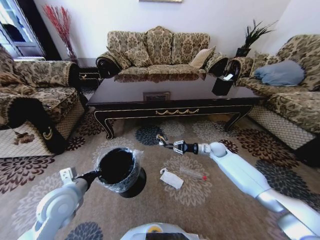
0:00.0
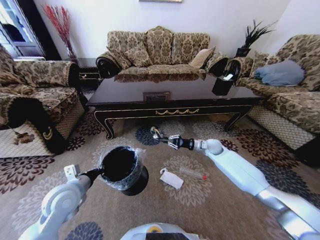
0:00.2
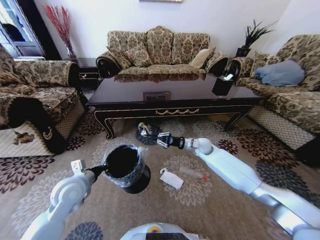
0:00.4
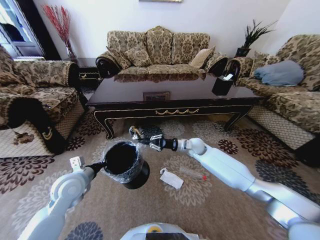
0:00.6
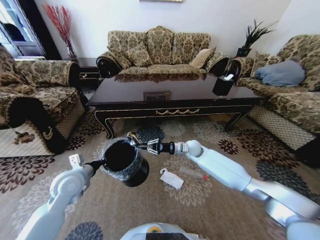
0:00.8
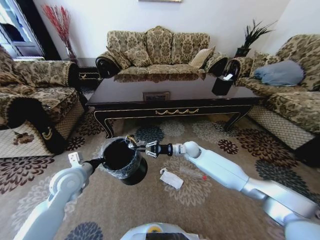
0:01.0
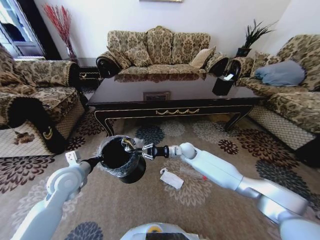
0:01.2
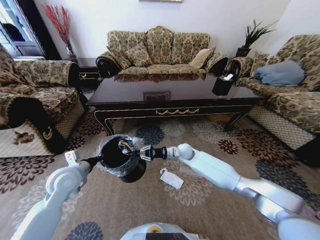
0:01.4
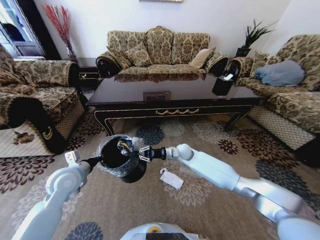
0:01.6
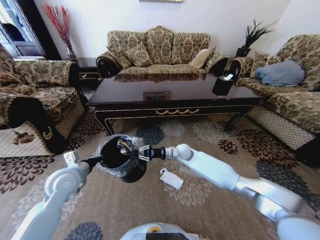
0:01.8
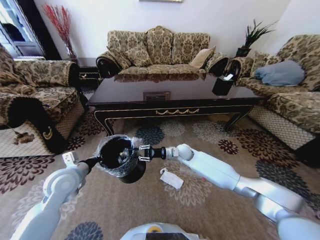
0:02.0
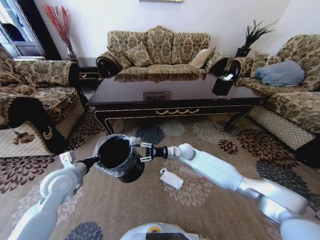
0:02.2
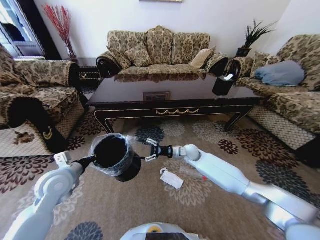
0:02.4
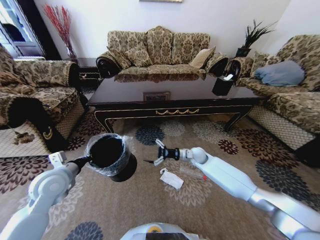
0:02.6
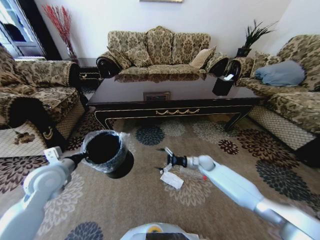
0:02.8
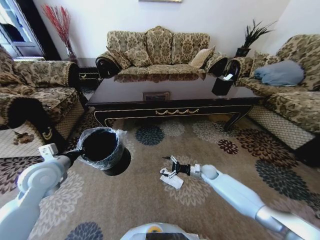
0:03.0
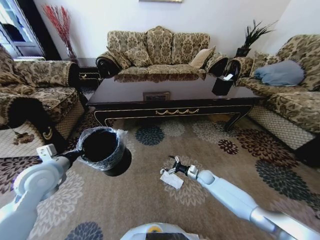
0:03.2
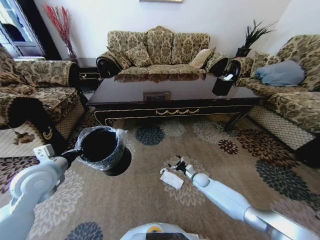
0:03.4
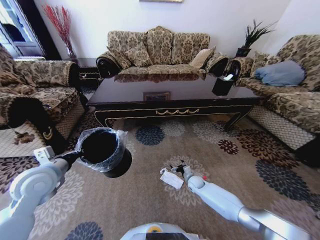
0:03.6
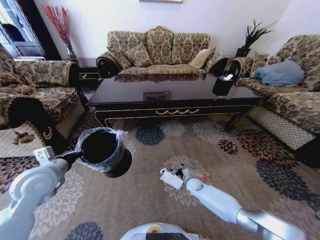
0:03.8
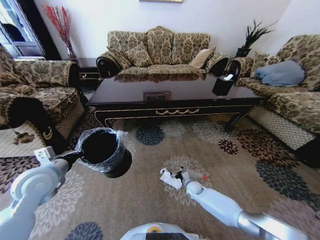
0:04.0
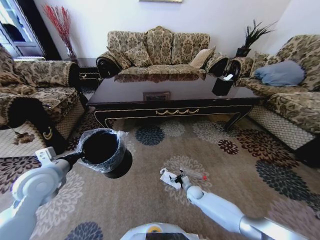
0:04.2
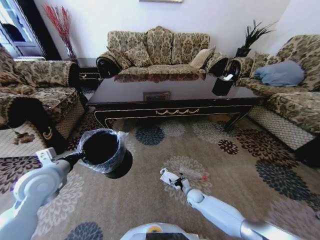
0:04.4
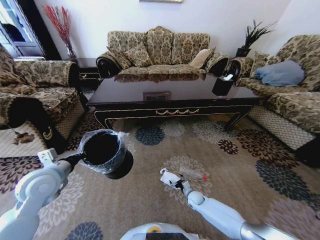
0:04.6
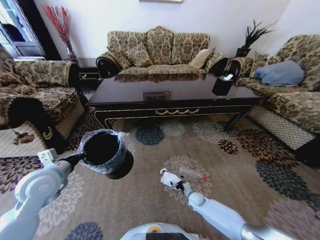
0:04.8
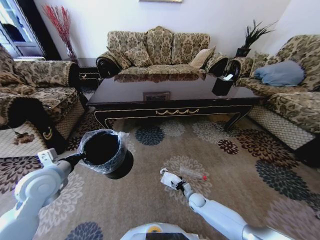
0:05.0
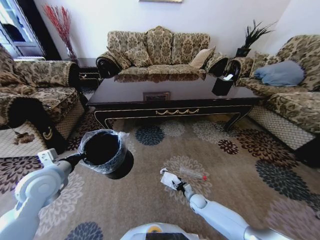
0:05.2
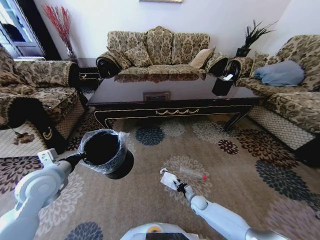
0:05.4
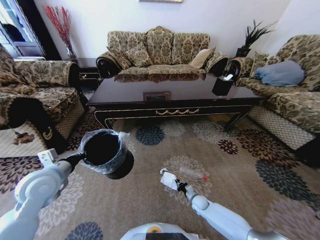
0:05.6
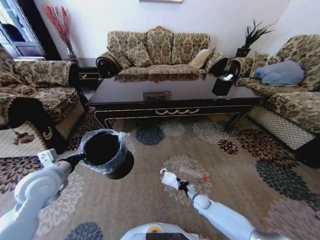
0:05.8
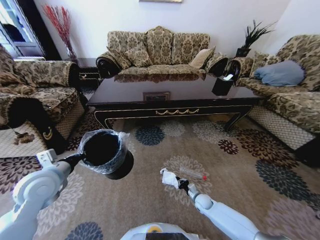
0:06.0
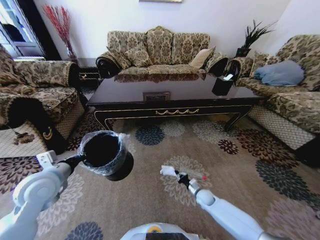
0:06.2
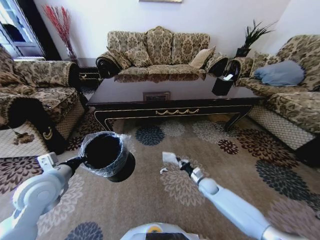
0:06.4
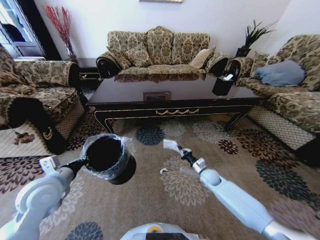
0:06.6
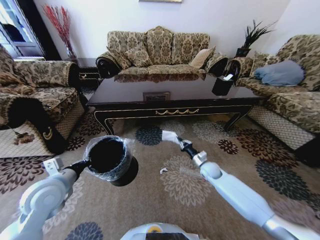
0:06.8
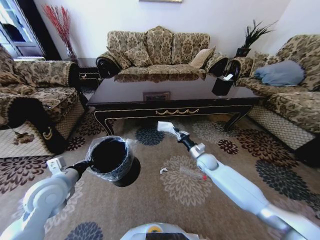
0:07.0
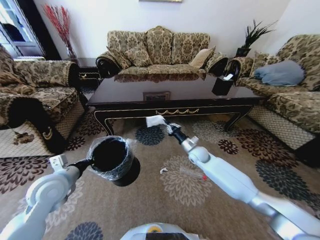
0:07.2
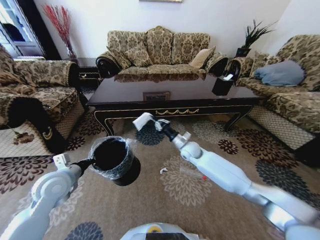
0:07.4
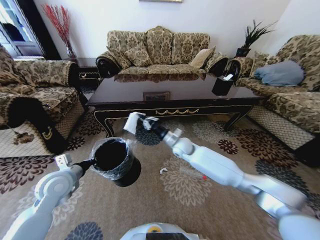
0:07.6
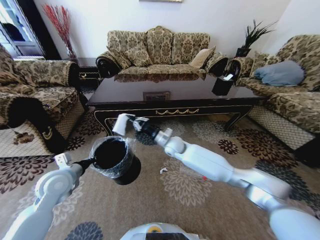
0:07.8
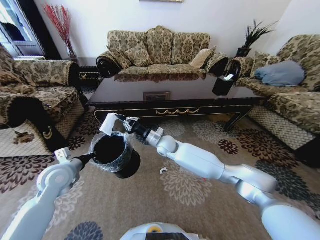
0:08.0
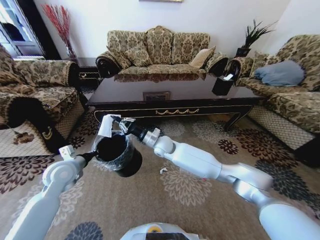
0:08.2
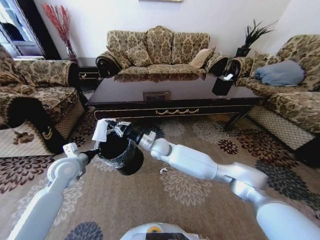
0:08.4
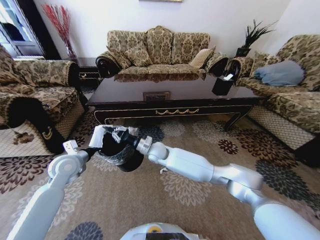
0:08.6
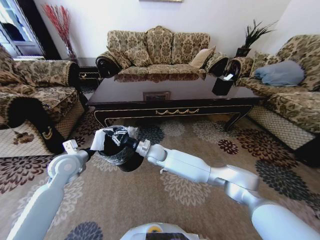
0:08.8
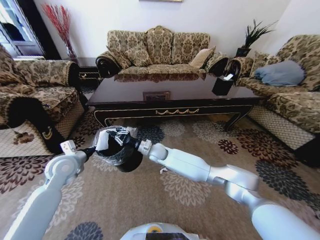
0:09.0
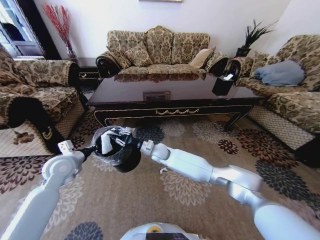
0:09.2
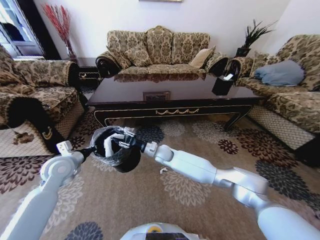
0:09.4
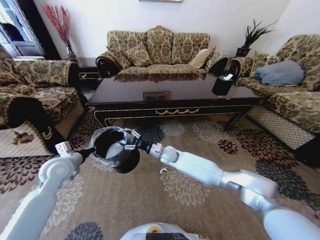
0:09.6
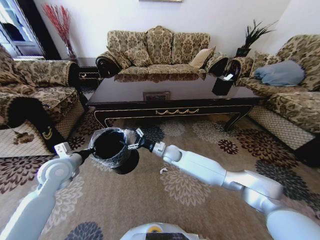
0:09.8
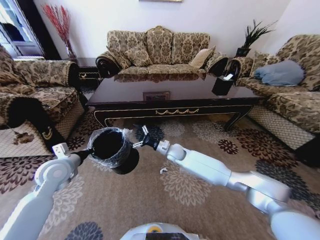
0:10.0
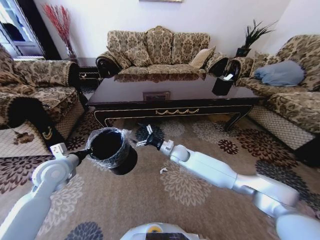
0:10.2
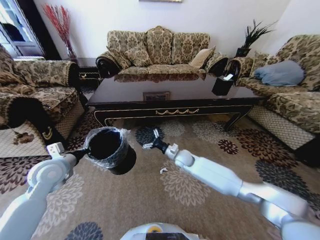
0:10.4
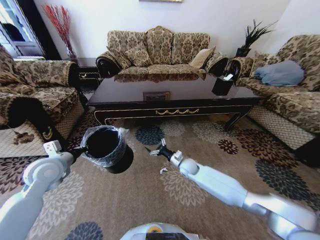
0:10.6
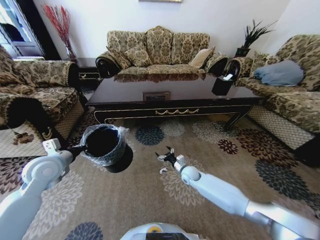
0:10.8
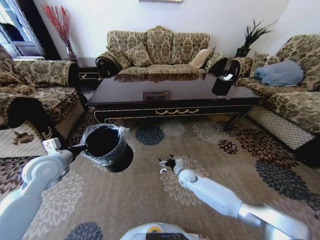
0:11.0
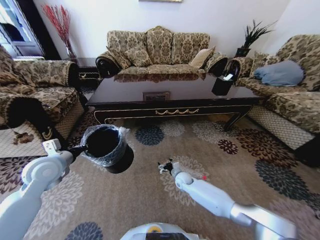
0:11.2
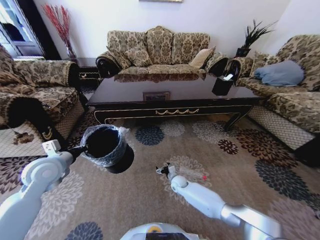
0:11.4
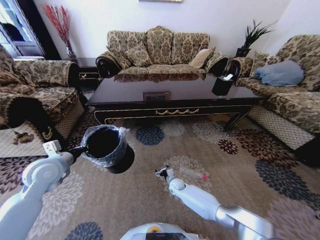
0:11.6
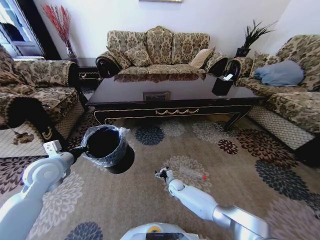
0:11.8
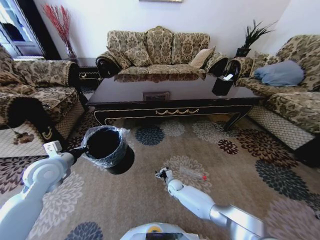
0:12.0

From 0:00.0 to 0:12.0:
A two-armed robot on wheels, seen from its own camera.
Task of the whole recording: Move to the front of the table and pick up the trash from the floor, then place it into the trash bin.
From 0:00.0 to 0:01.6: The right gripper travels to the left by roughly 20 cm, while the left gripper shifts approximately 5 cm forward.
From 0:01.6 to 0:03.0: The left gripper changes place by about 5 cm. Meanwhile the right gripper shifts about 20 cm to the right and downward, and opens.
From 0:03.0 to 0:04.4: The right gripper shifts roughly 15 cm downward, backward and to the left.
From 0:04.4 to 0:06.0: The right gripper closes its fingers.
From 0:06.0 to 0:07.6: The right gripper heads upward, forward and to the left, covering approximately 40 cm.
From 0:07.6 to 0:09.0: The right gripper shifts approximately 10 cm to the left; the left gripper is displaced forward by some 5 cm.
From 0:09.0 to 0:10.4: The right gripper heads to the right, covering approximately 15 cm, and opens.
From 0:10.4 to 0:12.0: The right gripper is displaced downward by some 25 cm.

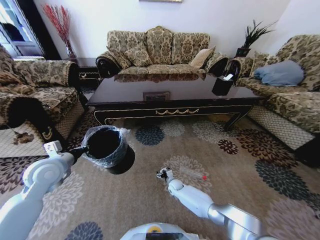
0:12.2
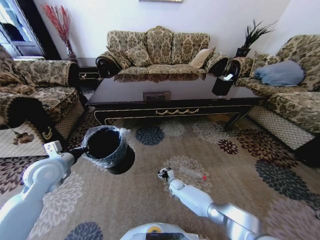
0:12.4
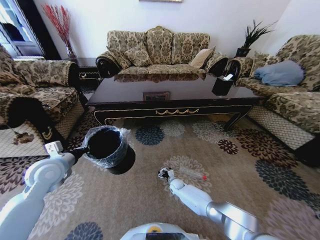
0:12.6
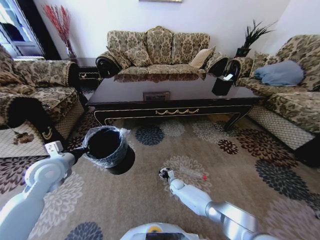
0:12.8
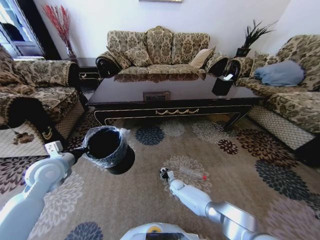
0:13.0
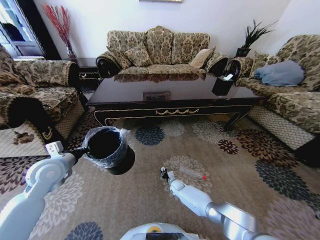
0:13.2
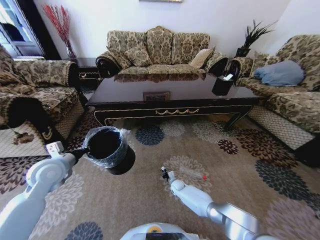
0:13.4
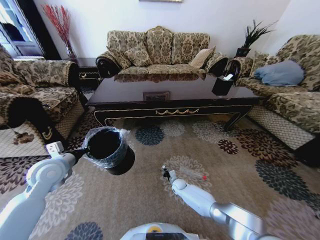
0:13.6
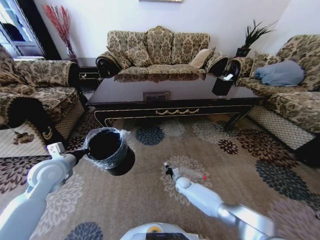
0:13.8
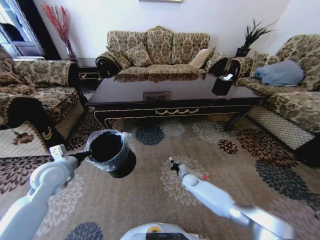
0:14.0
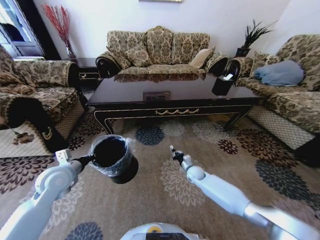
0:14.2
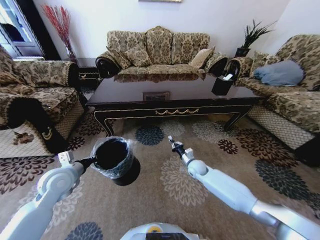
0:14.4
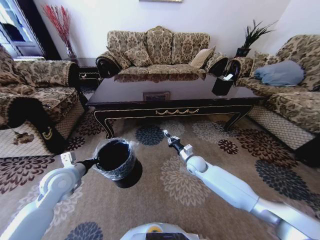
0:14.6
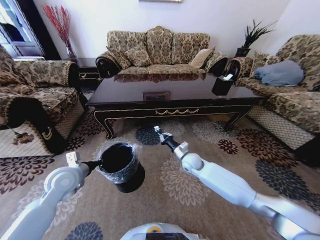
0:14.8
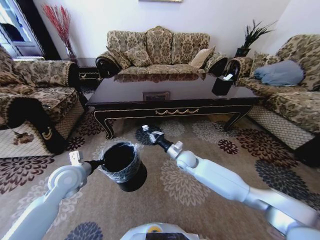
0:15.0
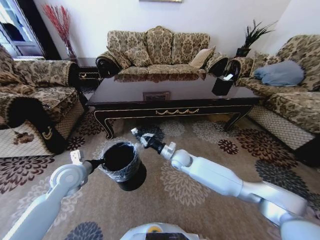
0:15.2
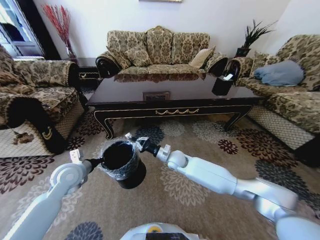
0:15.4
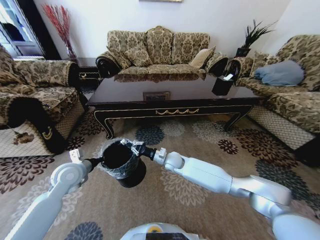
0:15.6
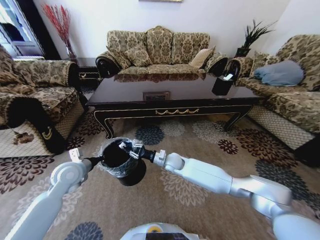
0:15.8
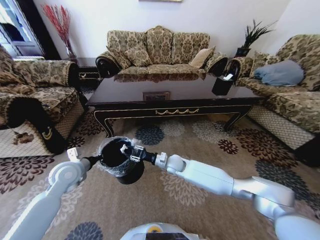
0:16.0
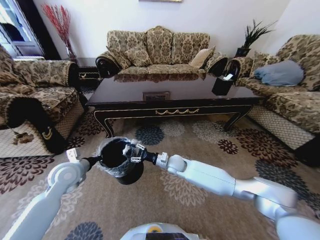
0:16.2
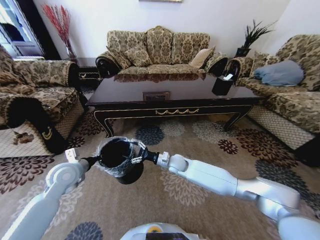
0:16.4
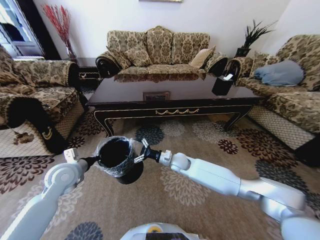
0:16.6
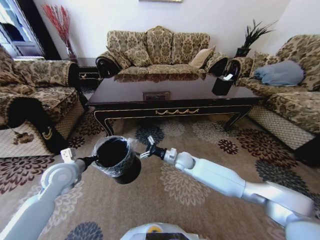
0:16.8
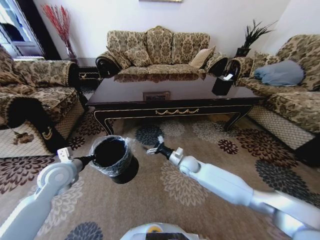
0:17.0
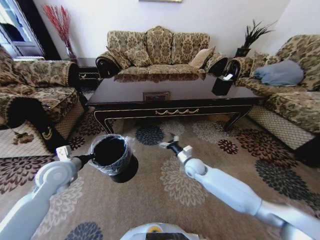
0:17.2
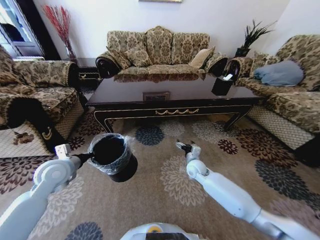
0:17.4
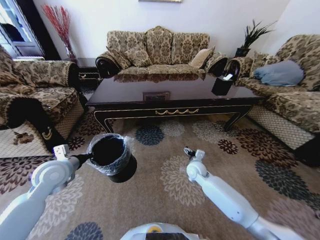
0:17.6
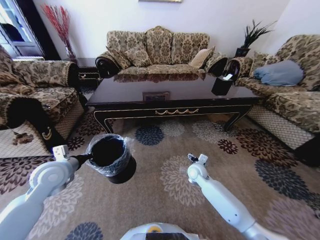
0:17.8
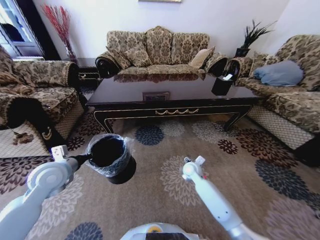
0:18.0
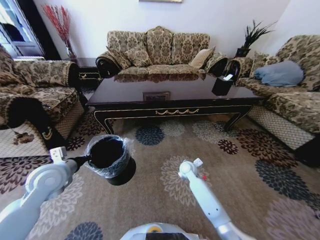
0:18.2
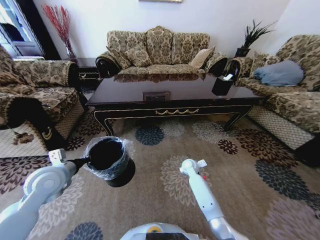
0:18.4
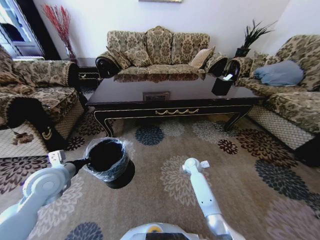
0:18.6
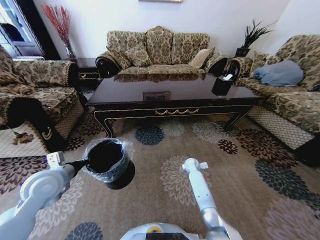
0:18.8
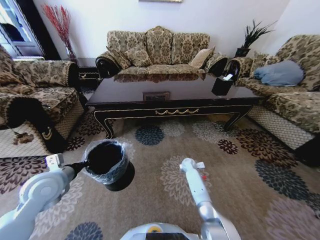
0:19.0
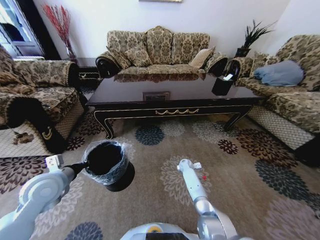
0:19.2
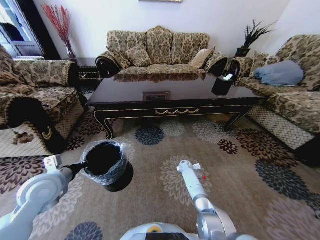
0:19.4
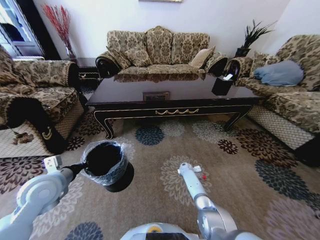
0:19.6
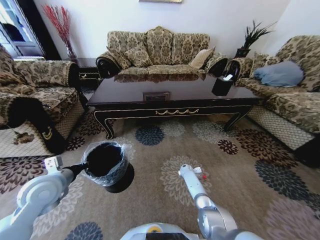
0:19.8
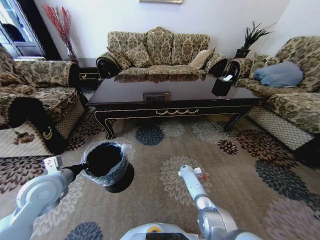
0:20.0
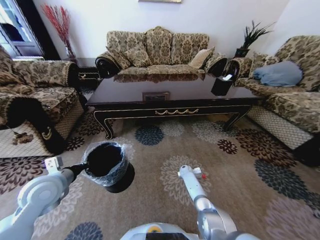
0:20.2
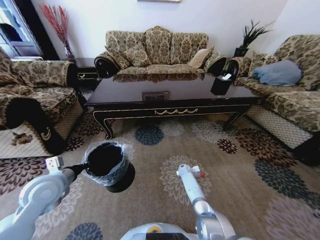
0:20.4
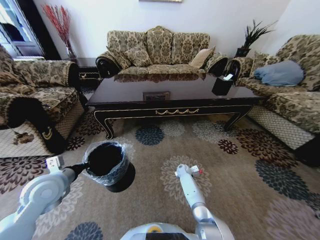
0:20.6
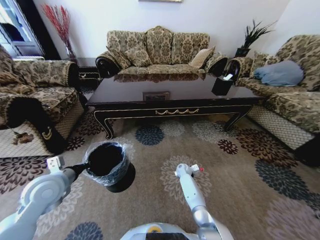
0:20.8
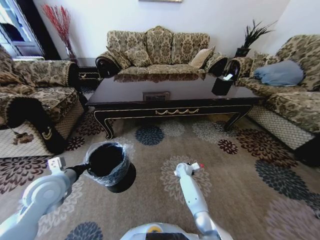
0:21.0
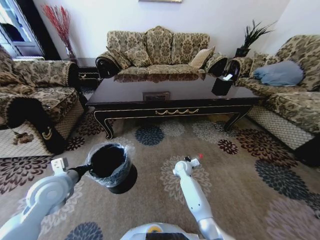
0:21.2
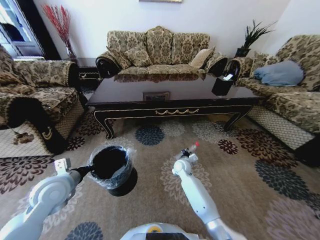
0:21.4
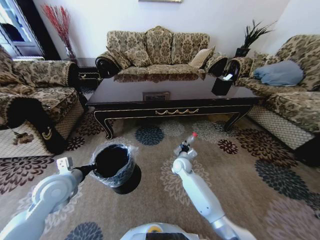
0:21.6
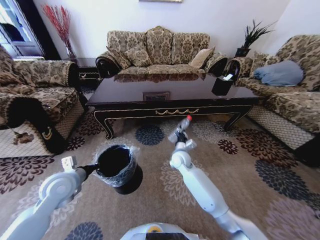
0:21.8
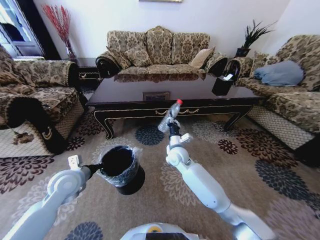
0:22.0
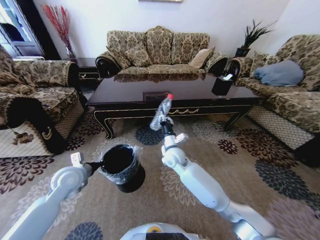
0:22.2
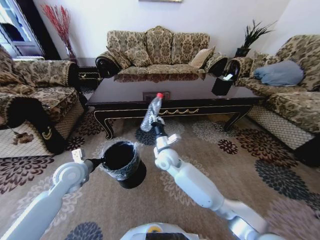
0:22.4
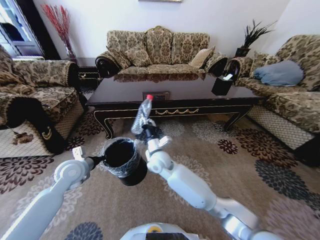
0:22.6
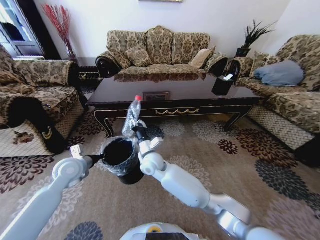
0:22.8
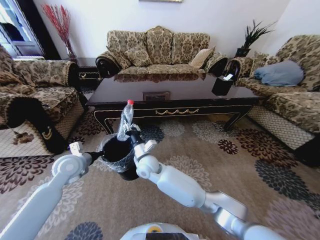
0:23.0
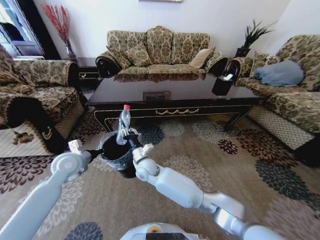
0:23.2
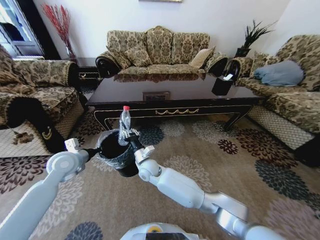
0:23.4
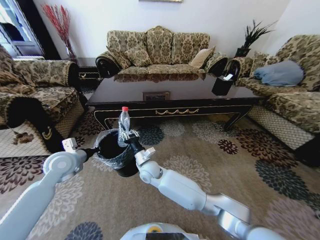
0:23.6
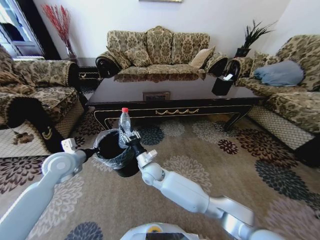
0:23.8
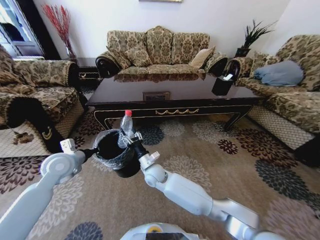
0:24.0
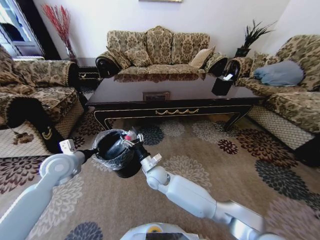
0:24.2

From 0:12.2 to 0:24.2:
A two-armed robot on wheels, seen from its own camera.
Task of the whole recording: Move to the front of the table and pick up the trash from the floor, then place it into the trash bin.
From 0:12.2 to 0:13.8: The right gripper closes its fingers.
From 0:13.8 to 0:15.2: The right gripper shifts approximately 25 cm upward. The left gripper ends up approximately 5 cm from where it was.
From 0:15.2 to 0:16.6: The right gripper opens.
From 0:16.6 to 0:18.2: The right gripper is displaced downward and to the right by about 10 cm.
From 0:18.2 to 0:19.8: The right gripper moves downward and forward, roughly 15 cm.
From 0:19.8 to 0:21.2: The right gripper heads upward and to the left, covering roughly 15 cm, and closes its fingers.
From 0:21.2 to 0:22.6: The left gripper heads forward, covering roughly 10 cm; the right gripper shifts approximately 25 cm upward and to the left.
From 0:22.6 to 0:24.2: The right gripper is displaced downward by about 10 cm, and opens its fingers.
